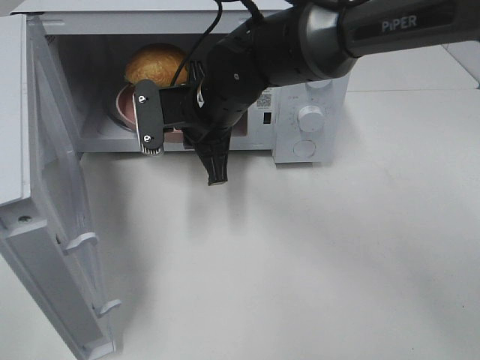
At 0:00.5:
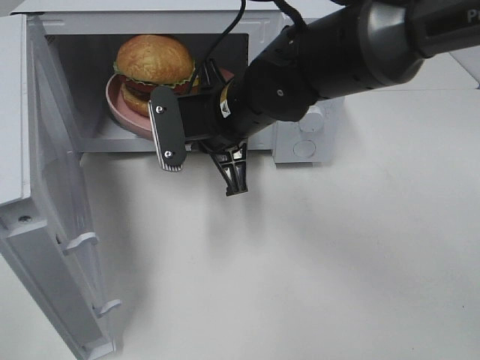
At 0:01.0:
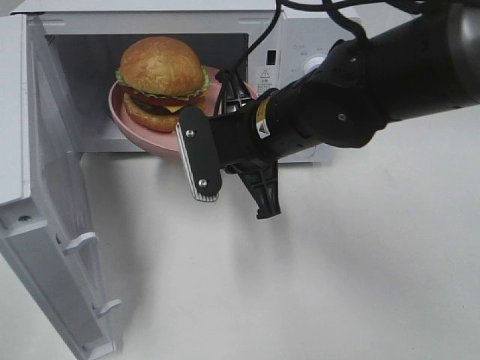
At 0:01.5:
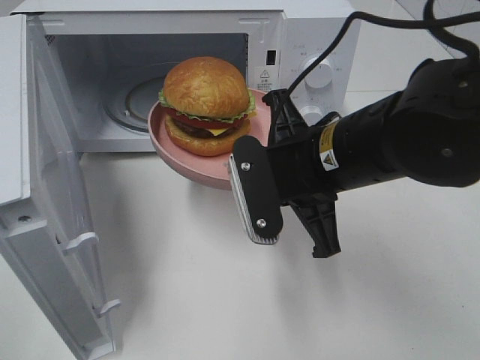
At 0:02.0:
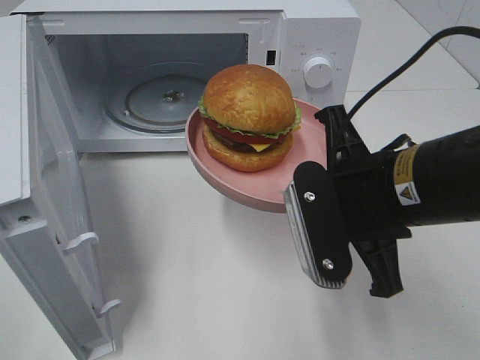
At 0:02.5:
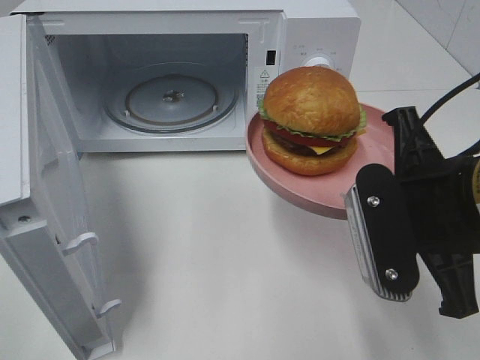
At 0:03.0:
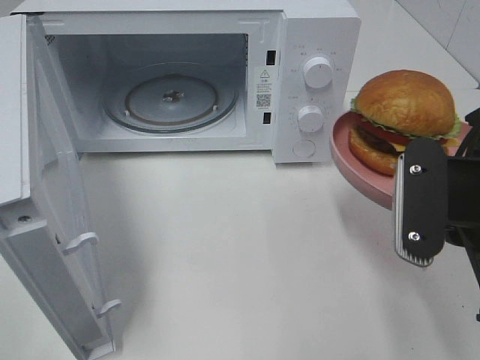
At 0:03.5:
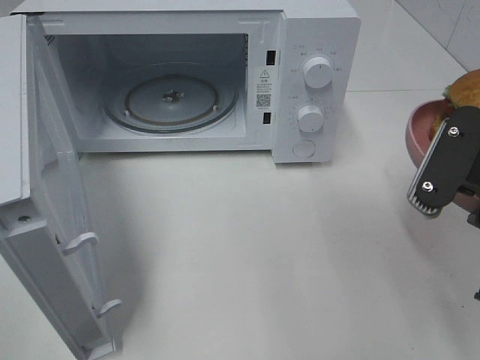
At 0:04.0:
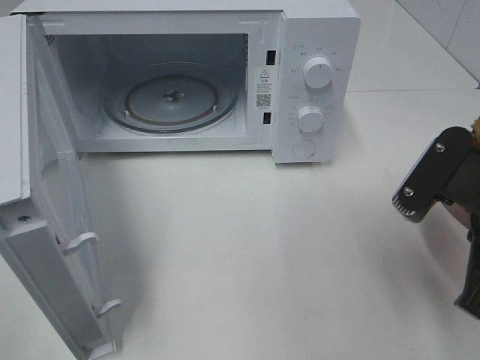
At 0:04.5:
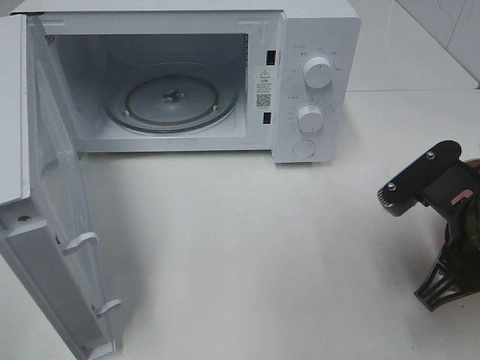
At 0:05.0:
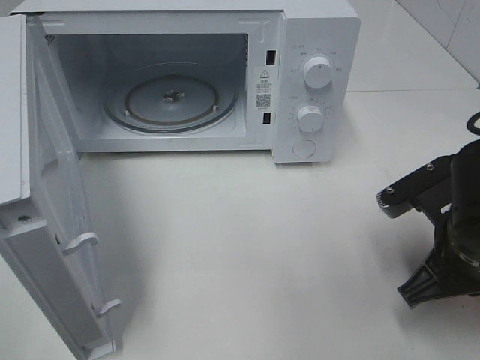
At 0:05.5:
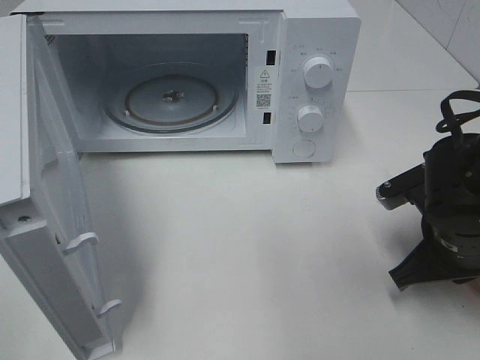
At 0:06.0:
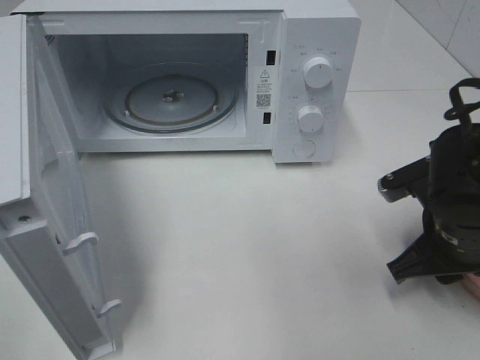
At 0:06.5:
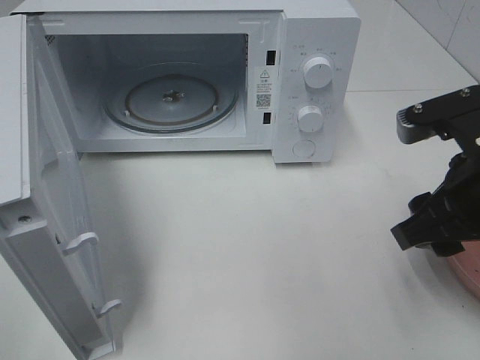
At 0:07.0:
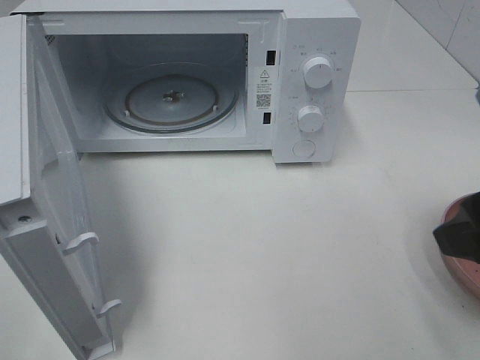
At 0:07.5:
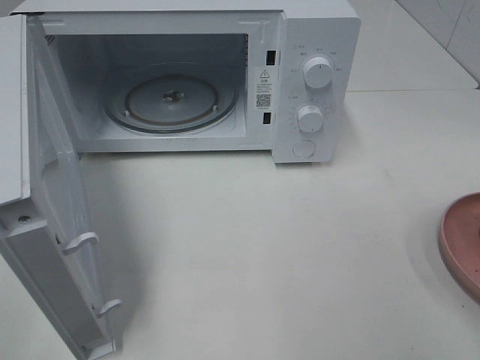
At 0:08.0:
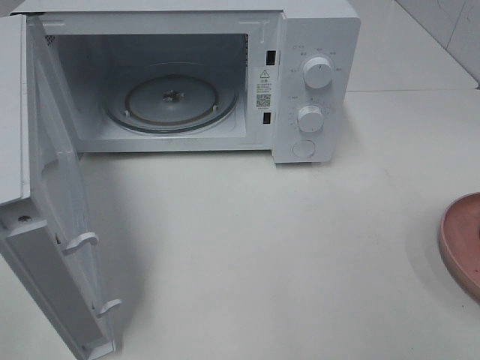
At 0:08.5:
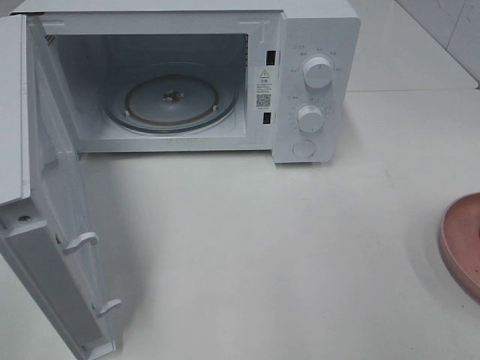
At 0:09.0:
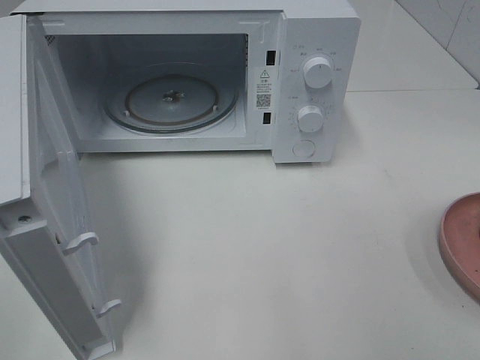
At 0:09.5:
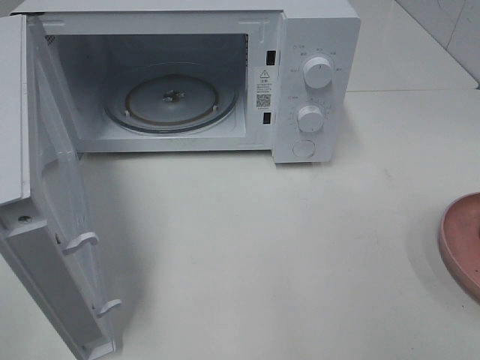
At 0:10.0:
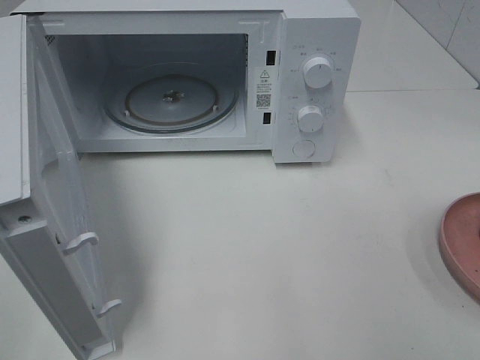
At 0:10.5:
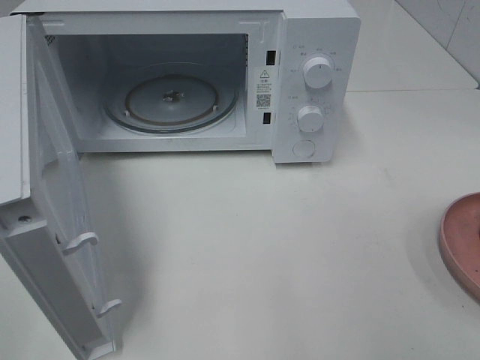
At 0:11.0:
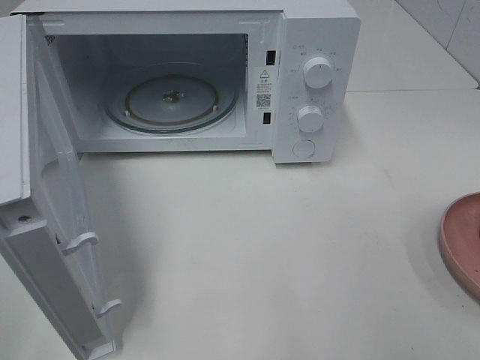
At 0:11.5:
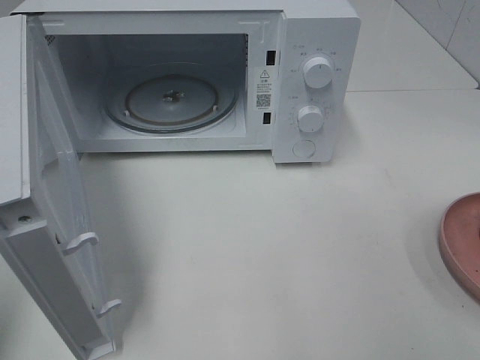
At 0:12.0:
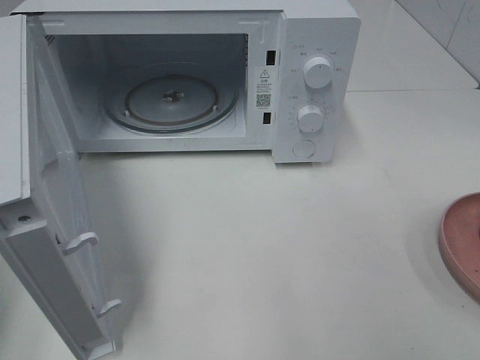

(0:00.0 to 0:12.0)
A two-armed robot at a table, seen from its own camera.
Task of the whole recording: Heat the burger.
Step, 0:00.0 - 0:06.0: Right hand: place the plate on the table.
0:00.0 - 0:02.0: The right gripper heads backward and to the right, covering approximately 20 cm.
0:02.0 - 0:04.0: The right gripper travels to the right by some 10 cm.
0:04.0 - 0:06.0: The right gripper moves downward and forward, some 10 cm, and opens up.
0:06.0 - 0:08.0: The right gripper heads backward, upward and to the right, covering some 25 cm, and opens.

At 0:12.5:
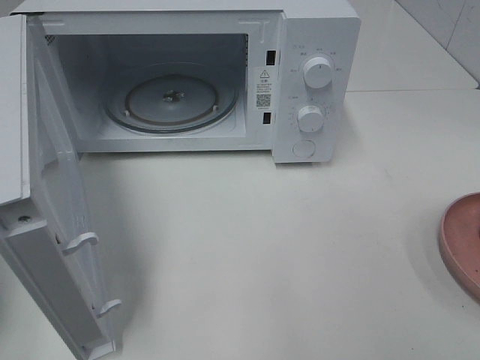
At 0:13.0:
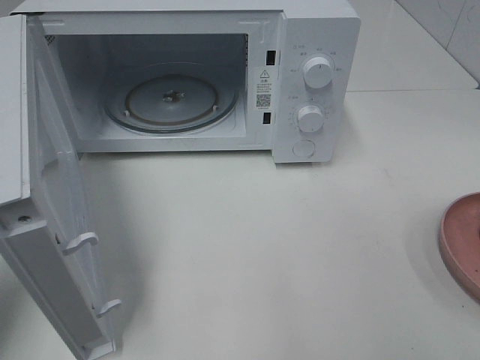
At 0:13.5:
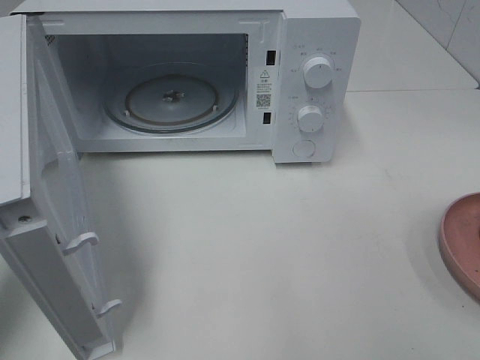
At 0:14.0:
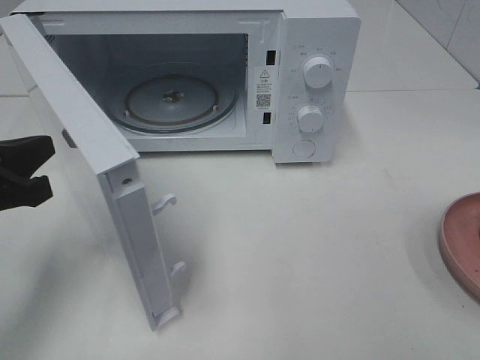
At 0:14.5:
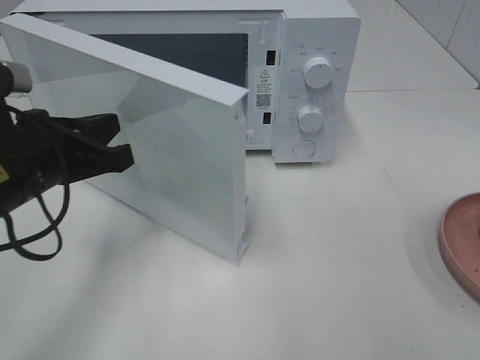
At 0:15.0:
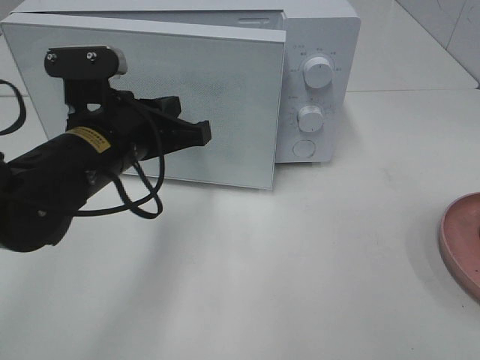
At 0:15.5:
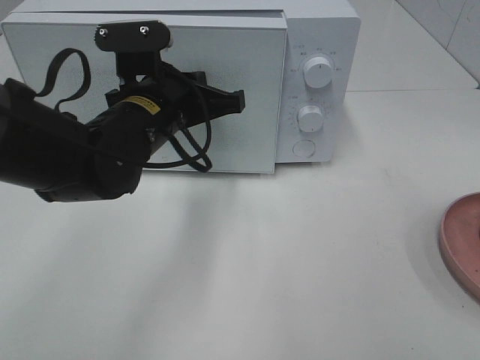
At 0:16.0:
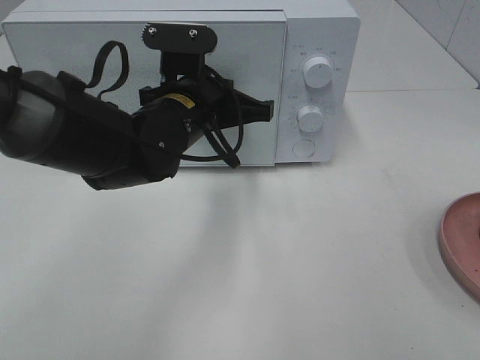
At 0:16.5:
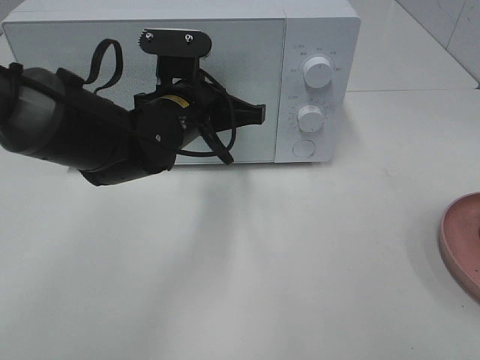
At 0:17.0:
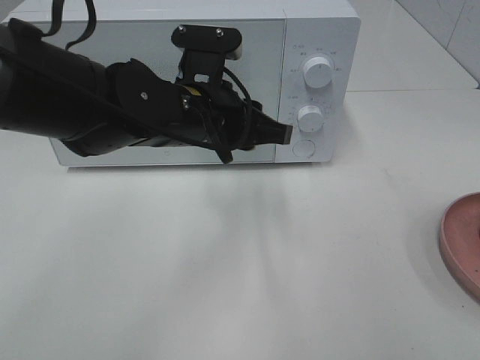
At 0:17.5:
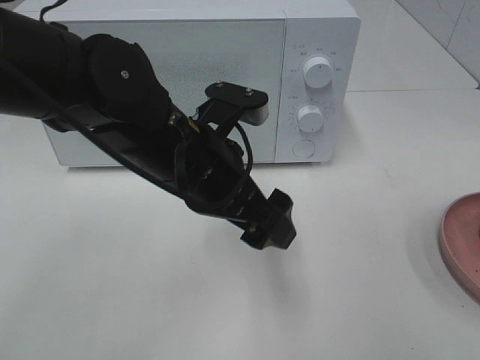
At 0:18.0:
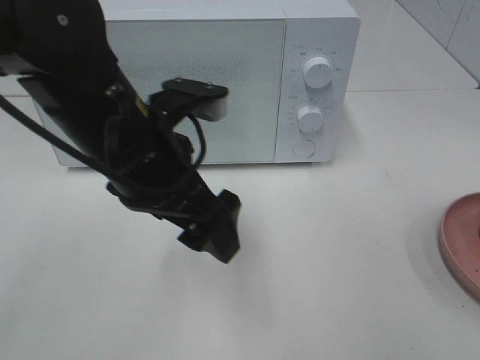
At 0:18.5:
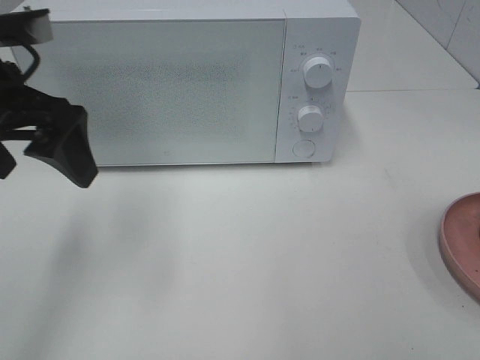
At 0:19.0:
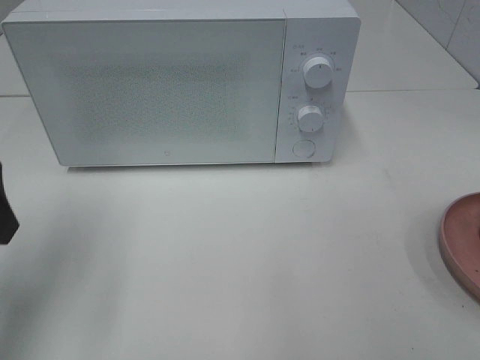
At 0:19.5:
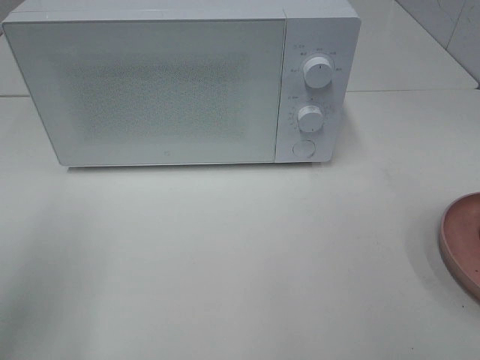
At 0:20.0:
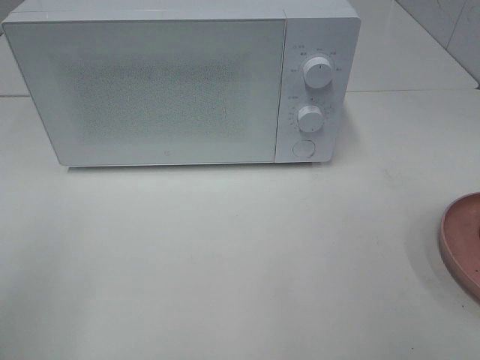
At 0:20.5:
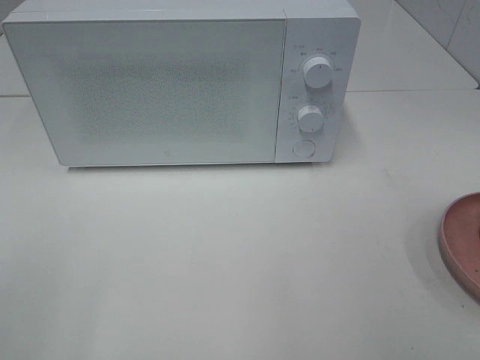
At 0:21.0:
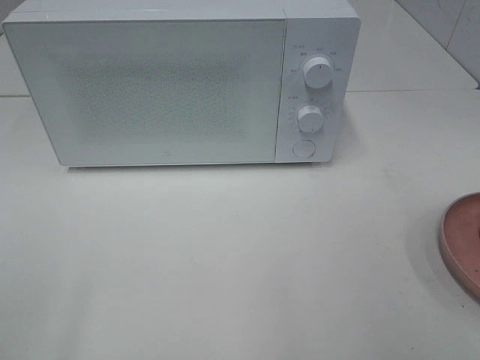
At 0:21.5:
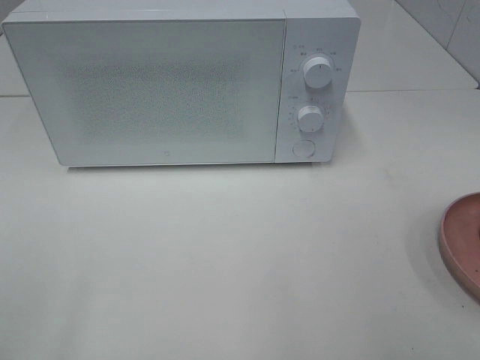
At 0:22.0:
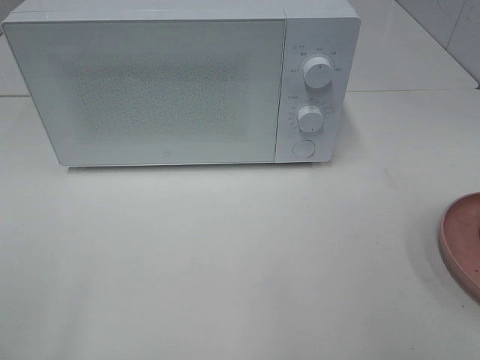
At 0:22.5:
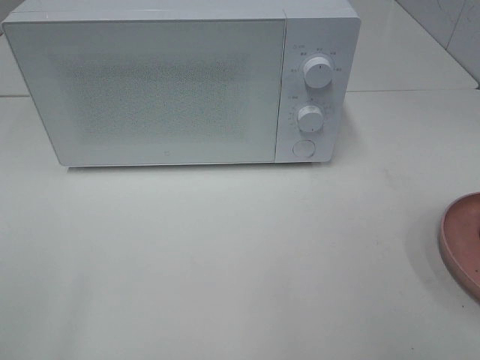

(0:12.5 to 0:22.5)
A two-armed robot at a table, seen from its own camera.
Task of the whole recording: Heat the burger.
Step, 0:12.5 - 0:16.5: Left hand: close the microwave door.
0:12.5 - 0:14.5: The left gripper shifts some 15 cm to the right and forward.
0:14.5 - 0:16.5: The left gripper moves to the right and forward, some 15 cm.
0:16.5 - 0:18.5: The left gripper shifts about 20 cm to the left, upward and backward, and opens.
0:18.5 - 0:20.5: The left gripper heads backward, covering roughly 25 cm.

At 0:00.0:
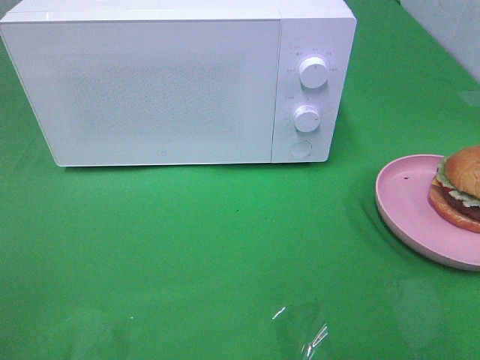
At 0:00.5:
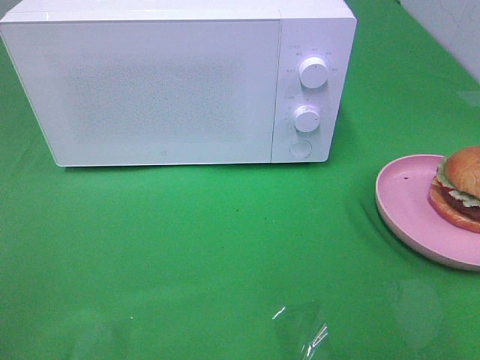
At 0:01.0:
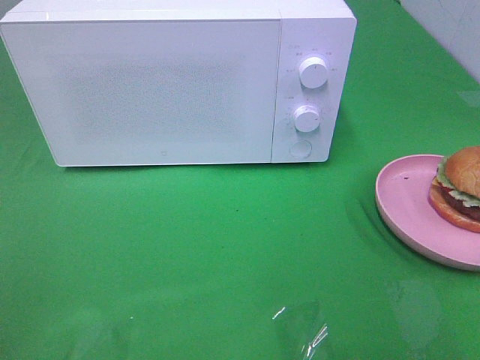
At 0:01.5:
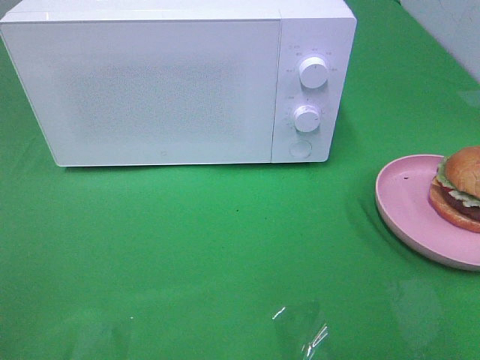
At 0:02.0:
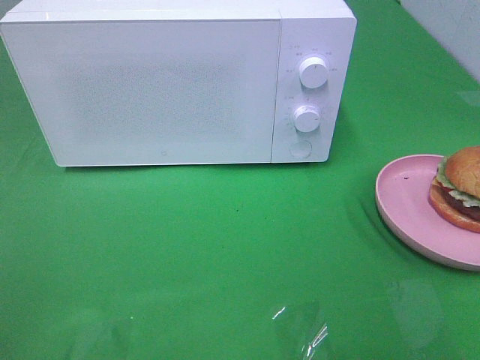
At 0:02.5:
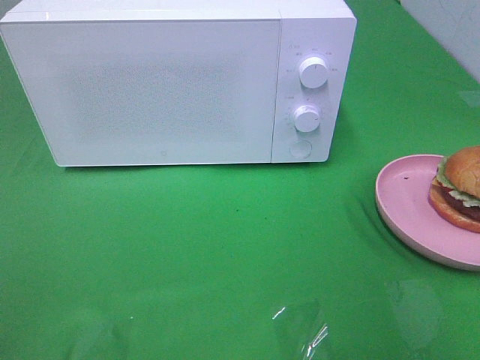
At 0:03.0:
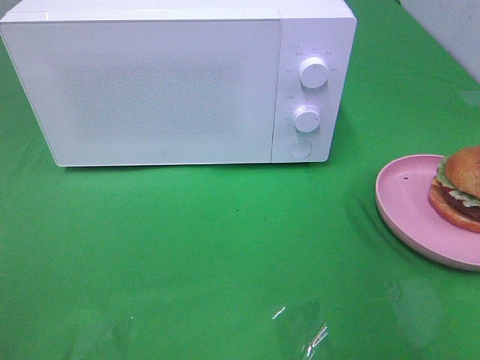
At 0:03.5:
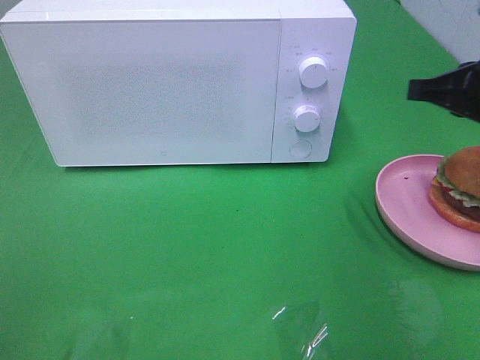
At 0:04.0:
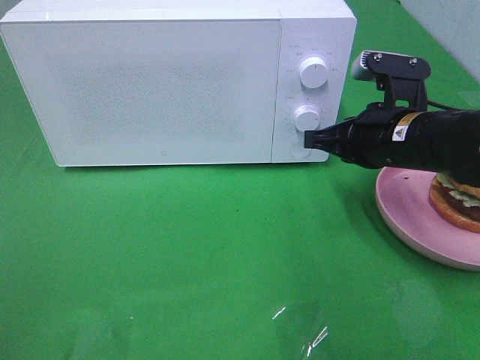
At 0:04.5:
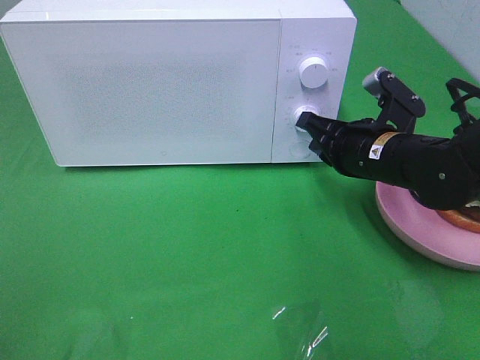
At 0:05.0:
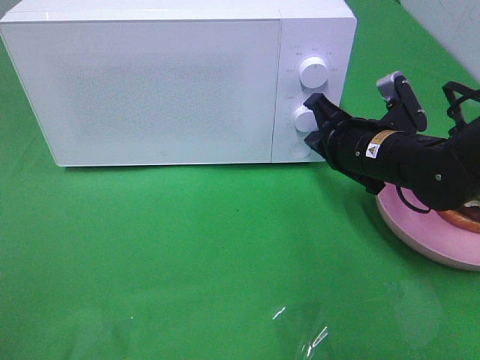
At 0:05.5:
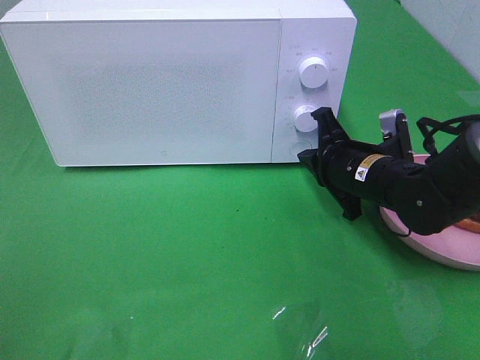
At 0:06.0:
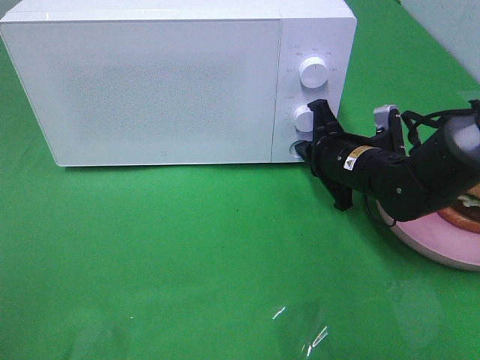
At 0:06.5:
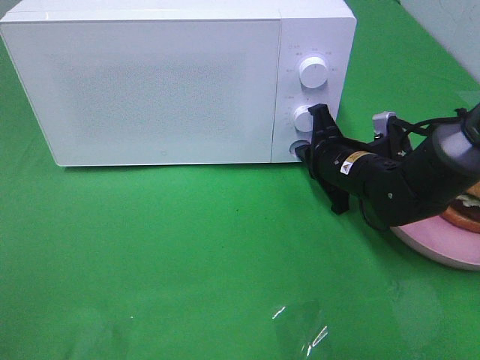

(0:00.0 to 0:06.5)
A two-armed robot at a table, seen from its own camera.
Task of the whole recording: Heat the burger.
0:02.0 - 0:04.5: The right gripper shifts about 35 cm forward, downward and to the left, and closes up.
0:04.5 - 0:06.5: The right gripper changes place by approximately 5 cm.